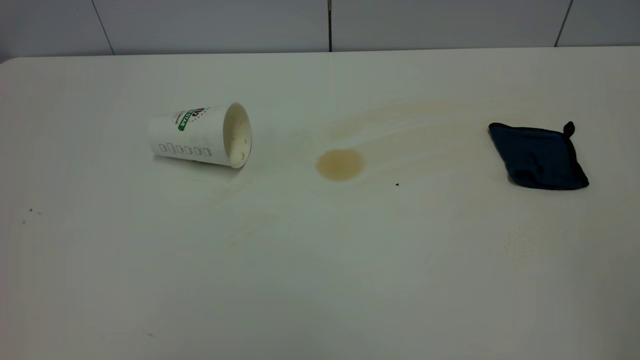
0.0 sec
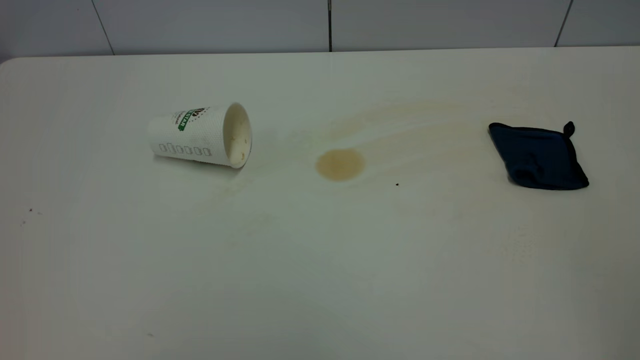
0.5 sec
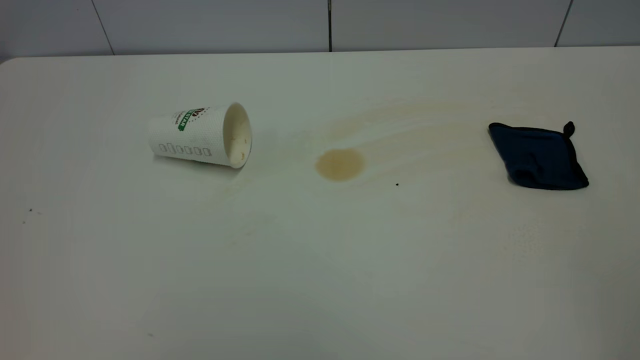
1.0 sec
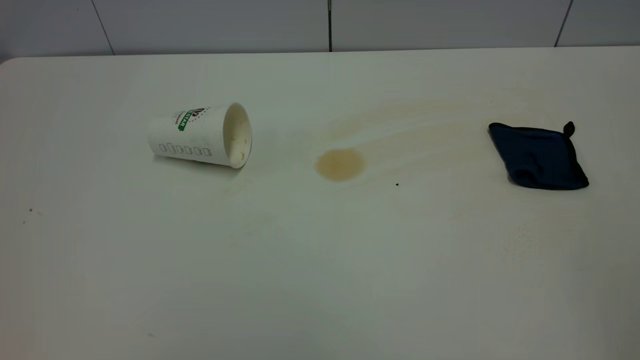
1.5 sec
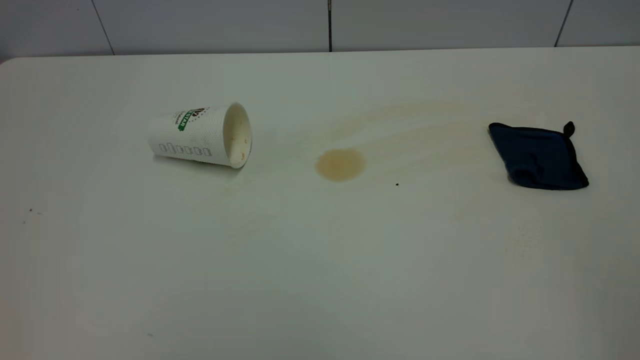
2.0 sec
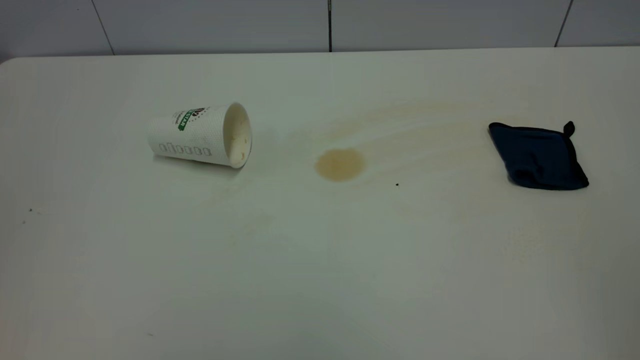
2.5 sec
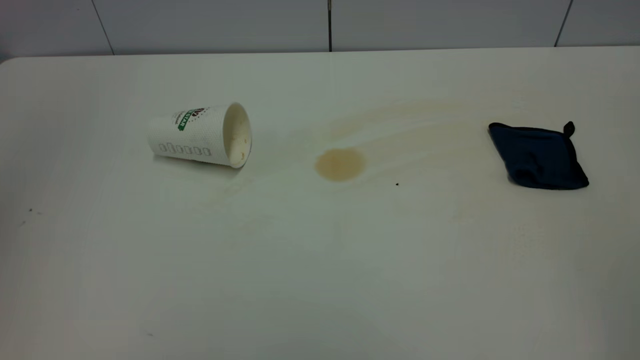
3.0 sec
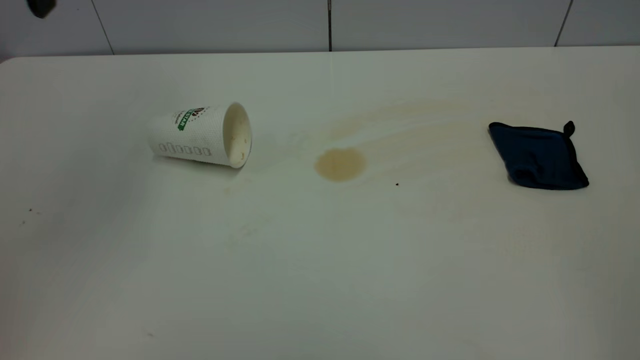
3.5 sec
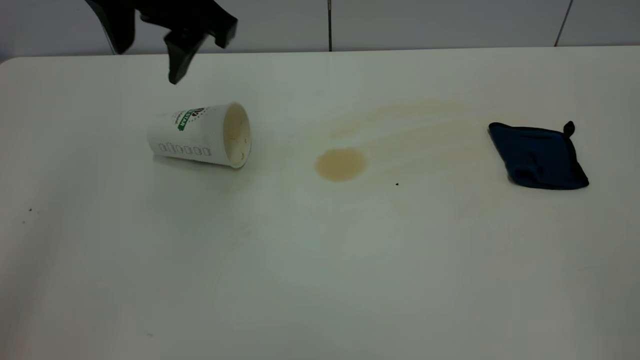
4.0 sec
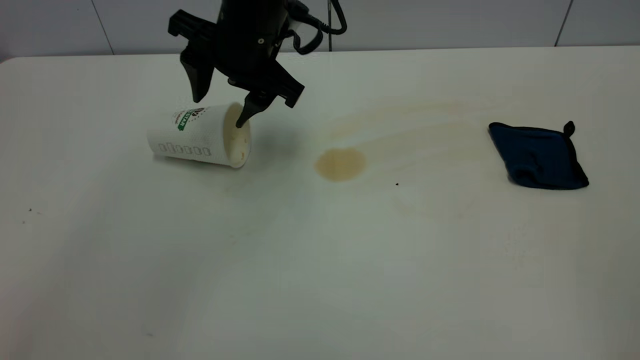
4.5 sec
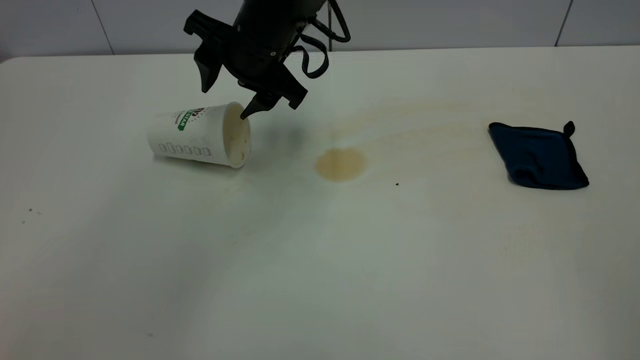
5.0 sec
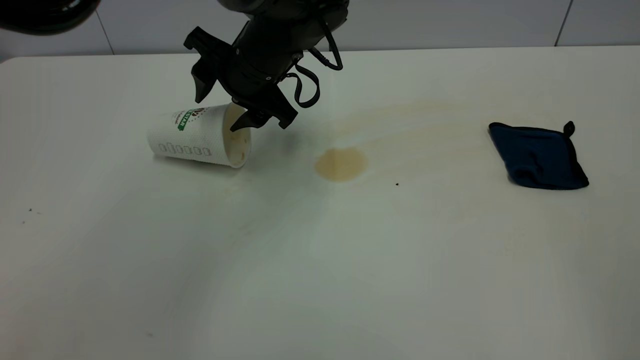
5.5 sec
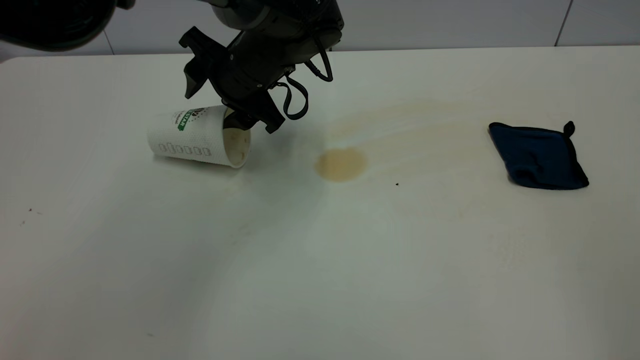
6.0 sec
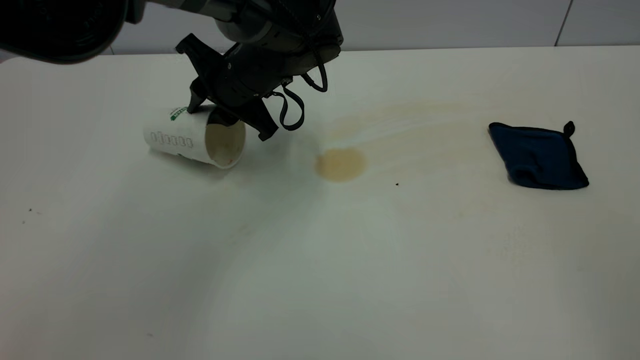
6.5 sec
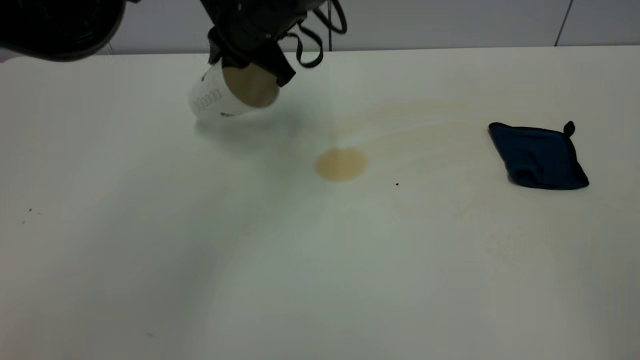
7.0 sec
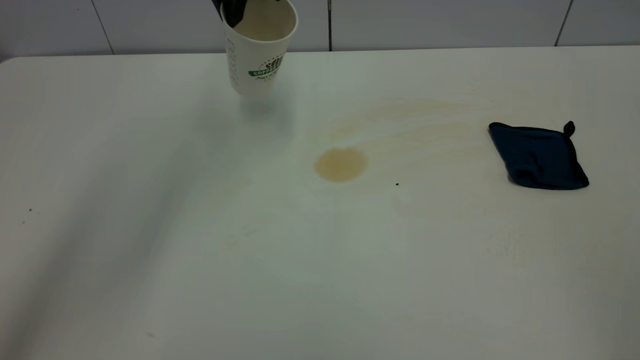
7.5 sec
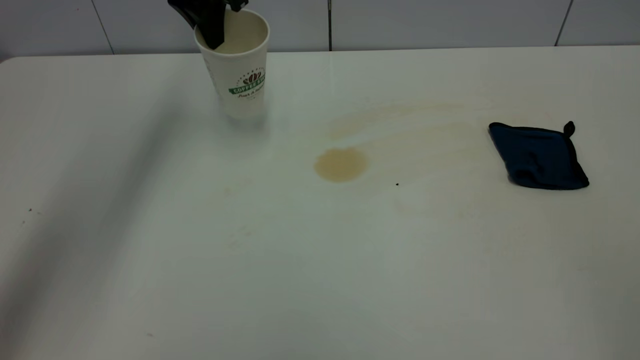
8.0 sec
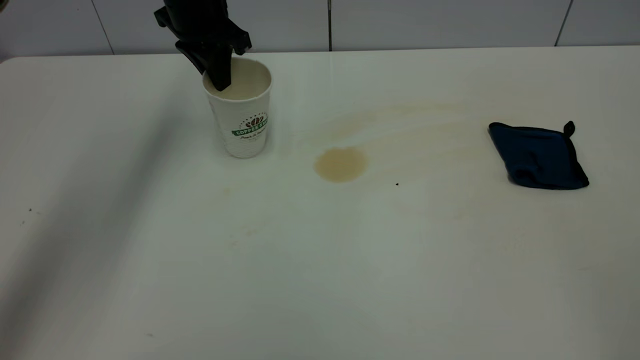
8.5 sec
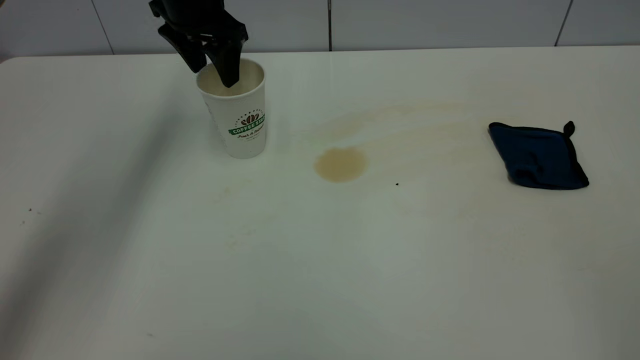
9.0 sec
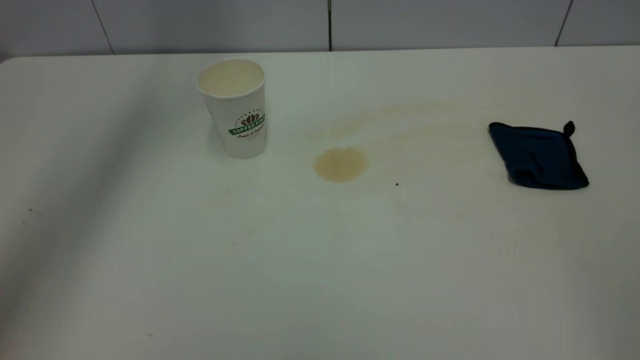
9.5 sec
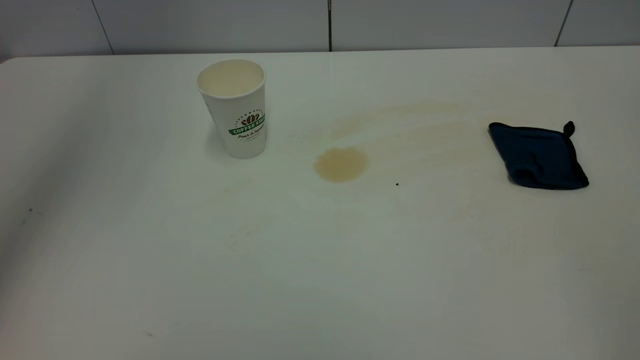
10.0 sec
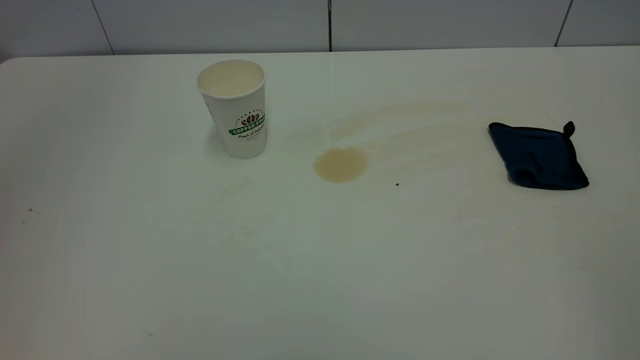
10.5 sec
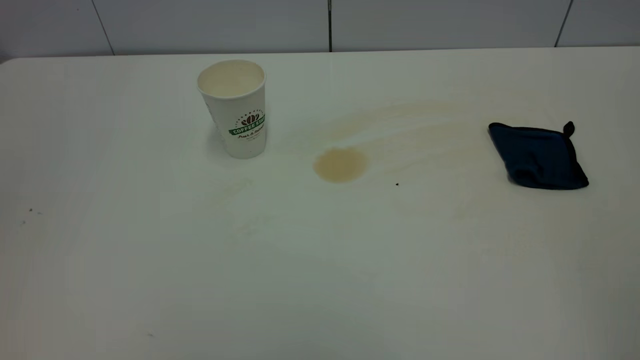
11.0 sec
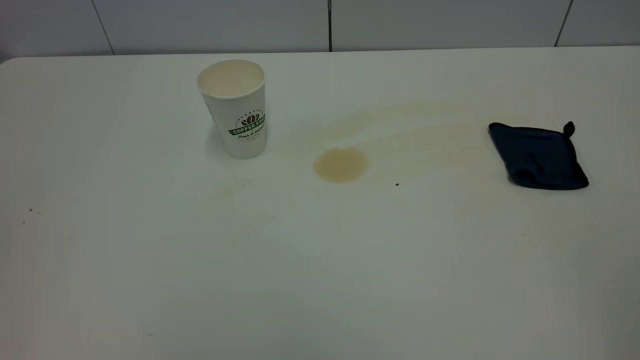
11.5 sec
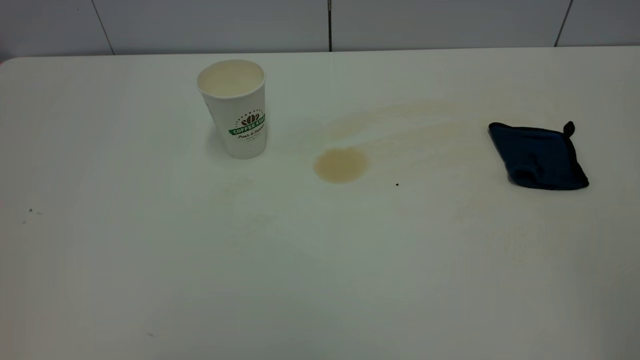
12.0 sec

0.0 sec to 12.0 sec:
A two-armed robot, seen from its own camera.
Task of the whole recording: the left gripper pick up the fallen cup and place it upright, the right gripper grasp the blue rag and wipe the tea stain on the table, the right gripper put the blue rag back in its original position.
Step, 0.0 sec to 9.0 sec: Stand the paper cup upright.
0.0 sec to 2.0 sec: The two grippers keep their place.
2.0 sec to 4.0 sec: The left gripper shifts approximately 40 cm forward and to the right, and opens up.
4.0 sec to 6.0 sec: The left gripper goes approximately 15 cm downward and forward.
6.0 sec to 8.0 sec: The left gripper goes roughly 15 cm upward, to the left and forward, and closes.
8.0 sec to 10.0 sec: The left gripper heads upward and backward, covering approximately 35 cm, and opens.
10.0 sec to 12.0 sec: The left gripper moves backward and downward, approximately 35 cm, and closes up.

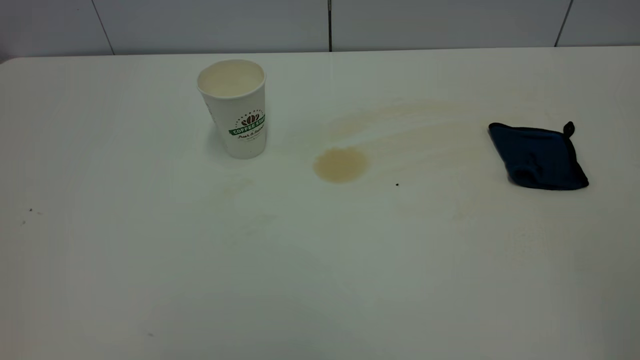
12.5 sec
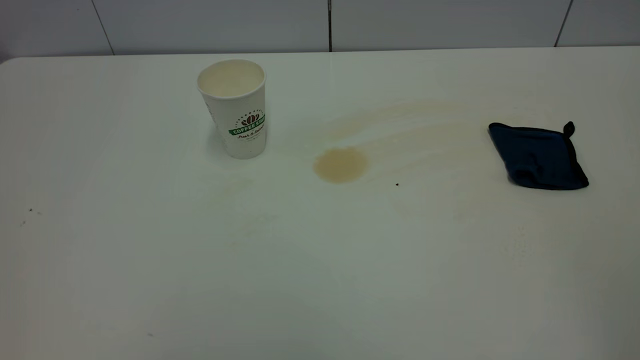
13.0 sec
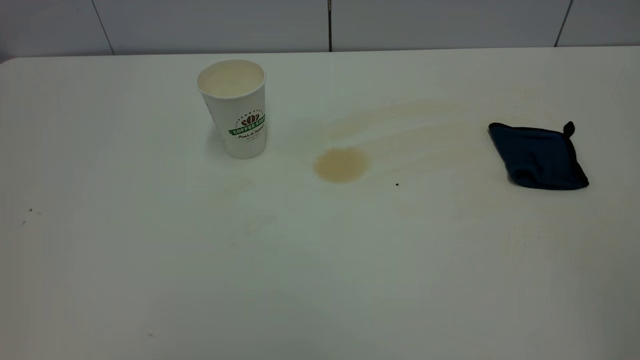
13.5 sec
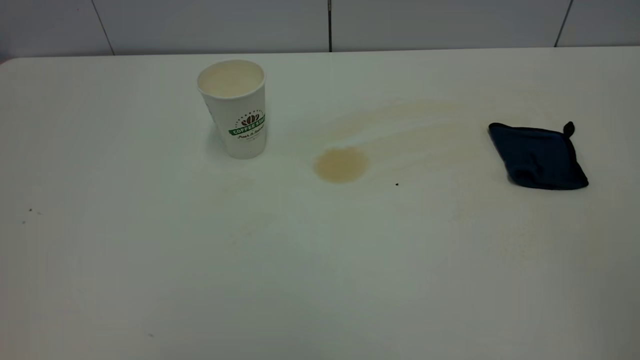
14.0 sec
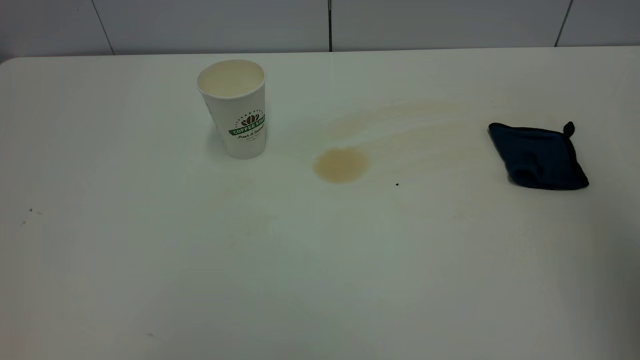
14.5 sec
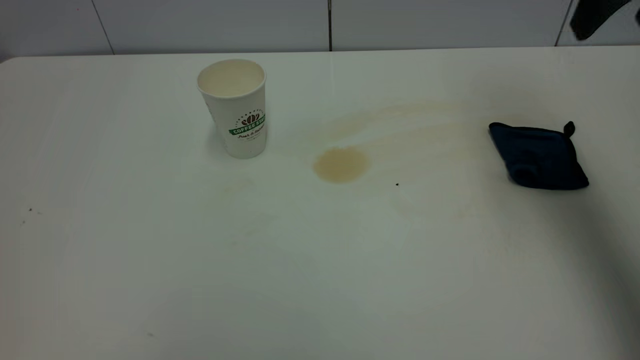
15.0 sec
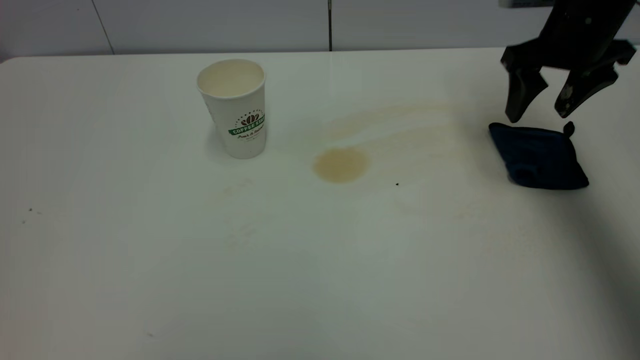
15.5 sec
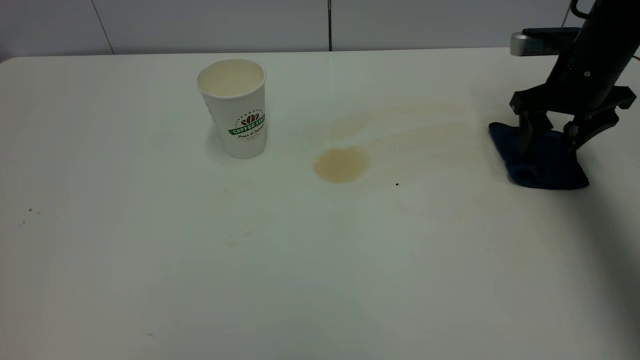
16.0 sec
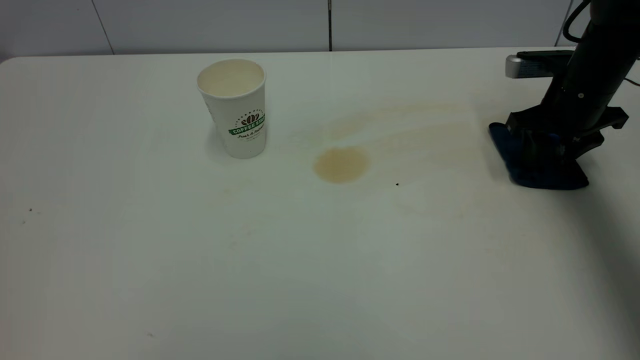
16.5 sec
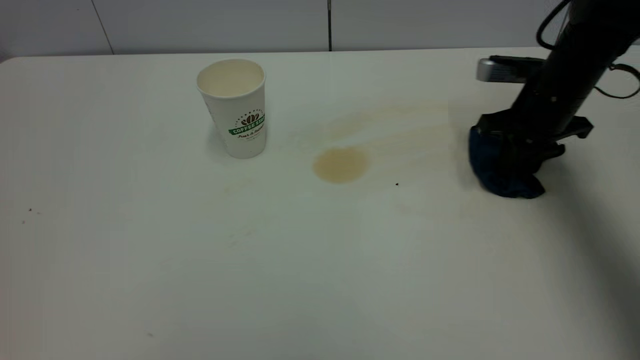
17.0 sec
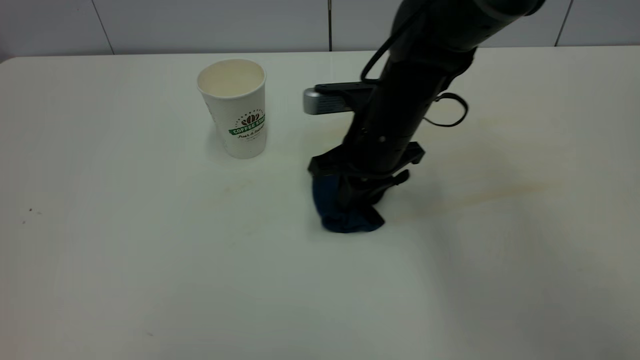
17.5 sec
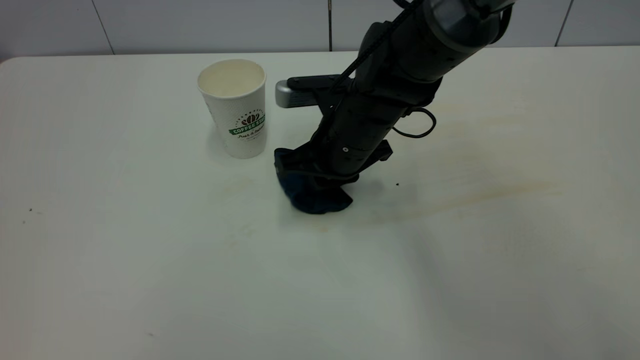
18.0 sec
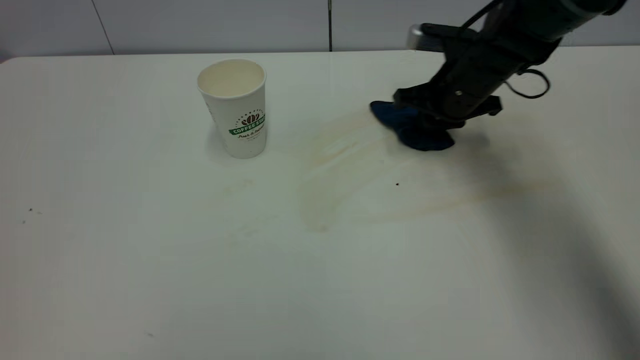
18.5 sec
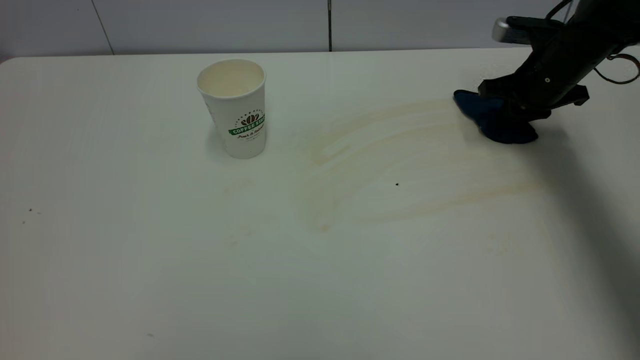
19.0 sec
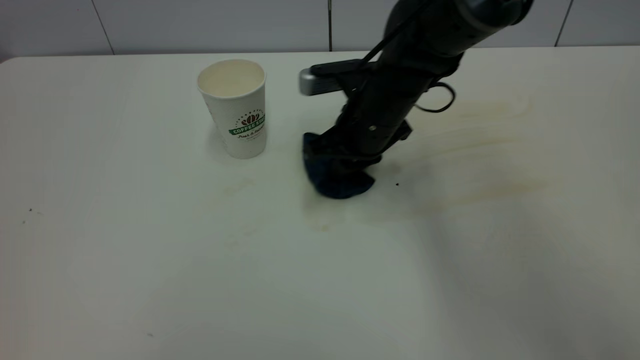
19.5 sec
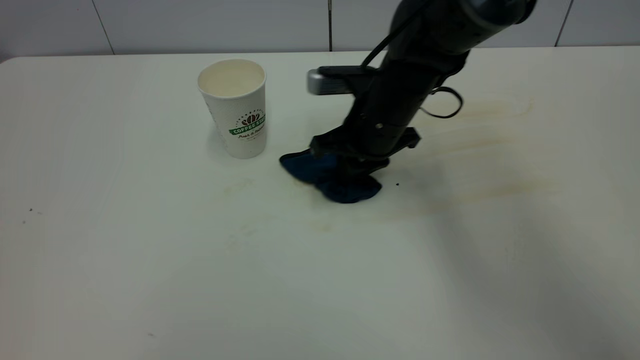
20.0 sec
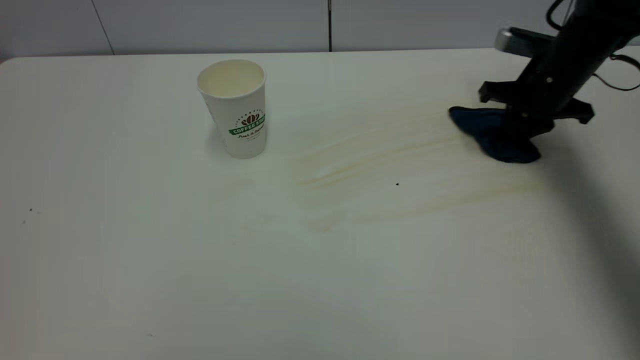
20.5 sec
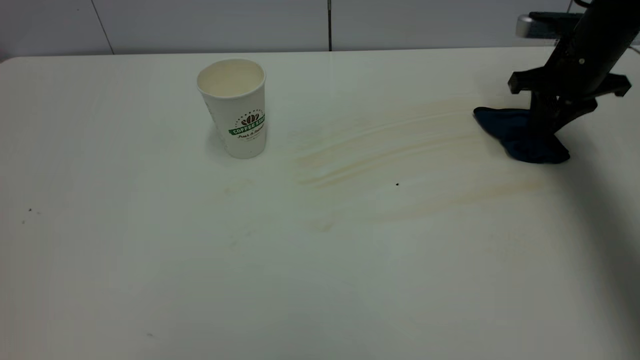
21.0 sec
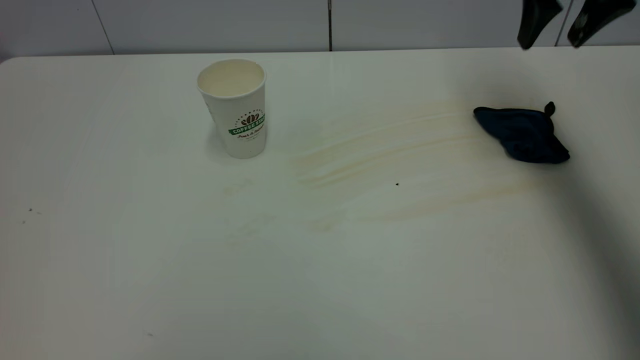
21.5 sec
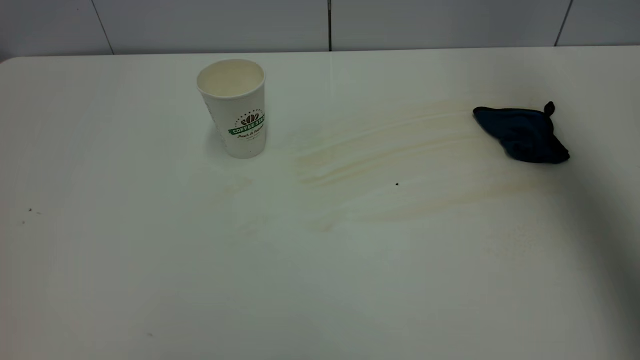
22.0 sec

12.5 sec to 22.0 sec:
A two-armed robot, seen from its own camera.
Task of the whole recording: the left gripper pick up the fallen cup and place it upright, the right gripper grasp the blue rag and wipe the tea stain on the table, the right gripper put the blue rag back in its original position.
Step, 12.5 sec to 21.0 sec: Wipe the stains off the table with a rag.
14.5 sec to 16.5 sec: The right gripper moves downward and forward, some 40 cm, and closes up.
16.5 sec to 18.0 sec: The right gripper moves to the left, some 25 cm, and closes its fingers.
18.0 sec to 20.0 sec: The right gripper swings left and right, roughly 25 cm each way, with 2 reversals.
20.0 sec to 22.0 sec: The right gripper goes approximately 40 cm upward and to the right, and opens its fingers.
